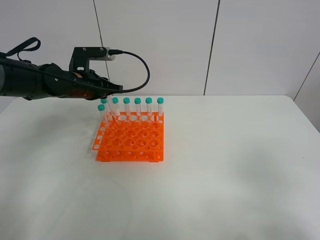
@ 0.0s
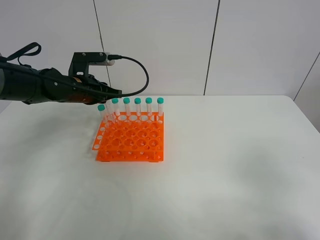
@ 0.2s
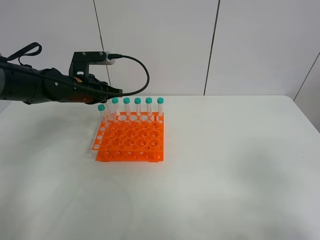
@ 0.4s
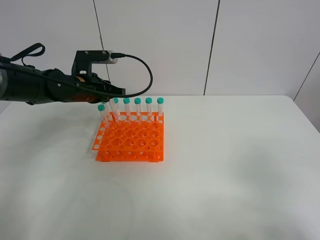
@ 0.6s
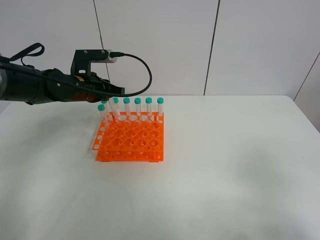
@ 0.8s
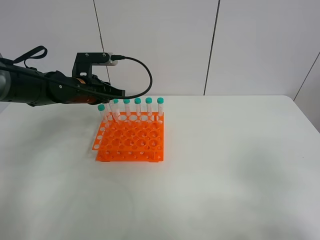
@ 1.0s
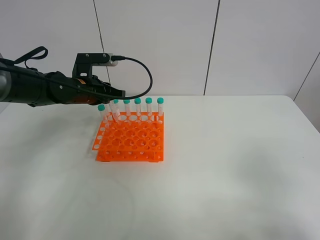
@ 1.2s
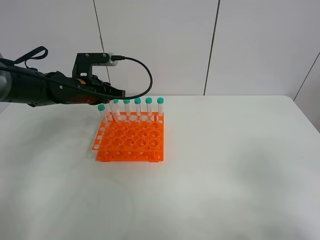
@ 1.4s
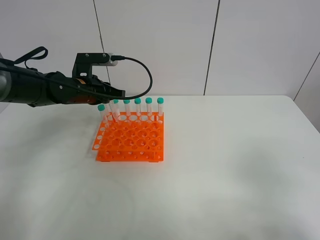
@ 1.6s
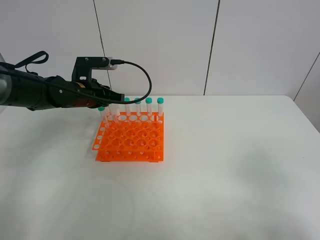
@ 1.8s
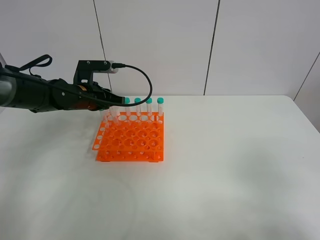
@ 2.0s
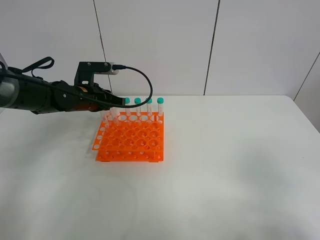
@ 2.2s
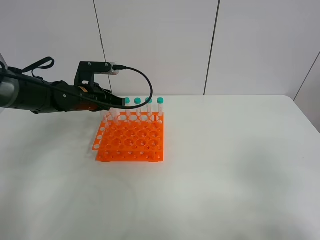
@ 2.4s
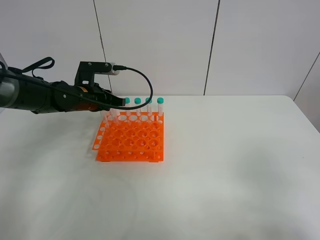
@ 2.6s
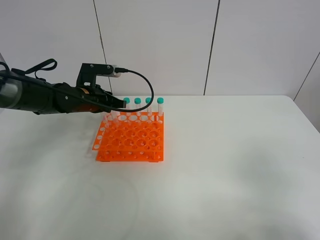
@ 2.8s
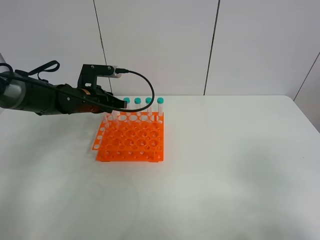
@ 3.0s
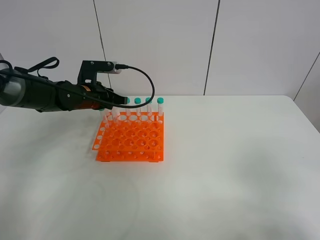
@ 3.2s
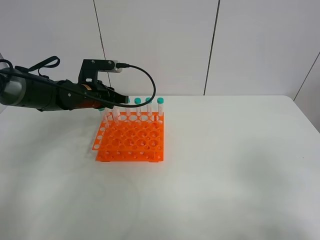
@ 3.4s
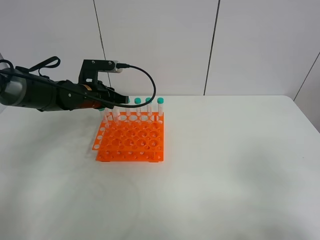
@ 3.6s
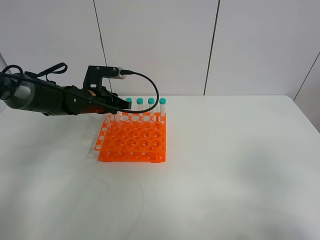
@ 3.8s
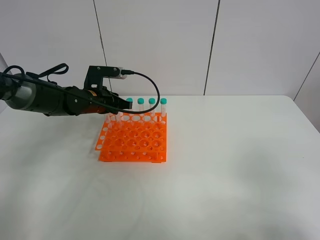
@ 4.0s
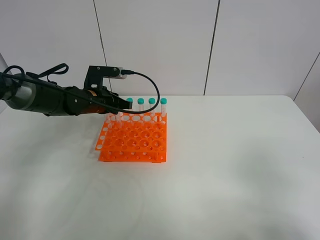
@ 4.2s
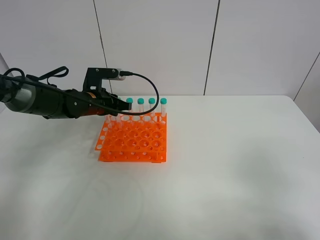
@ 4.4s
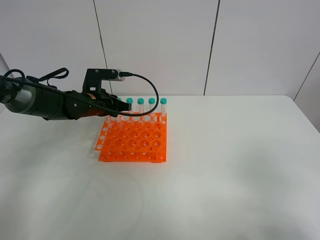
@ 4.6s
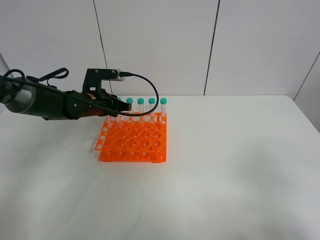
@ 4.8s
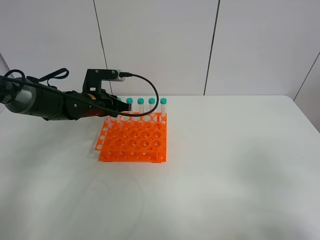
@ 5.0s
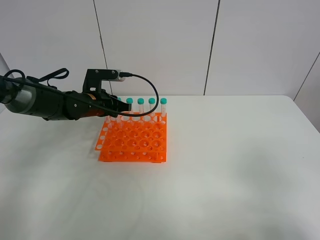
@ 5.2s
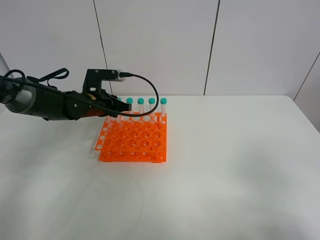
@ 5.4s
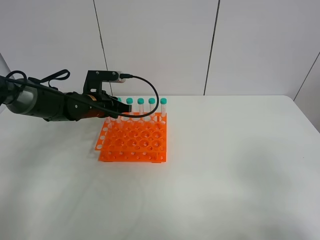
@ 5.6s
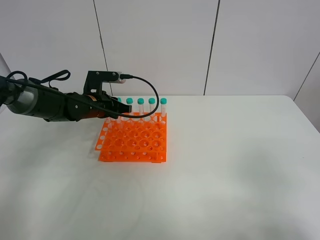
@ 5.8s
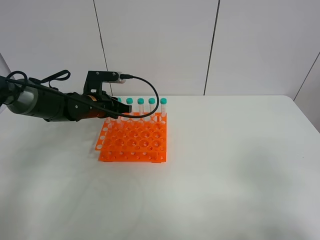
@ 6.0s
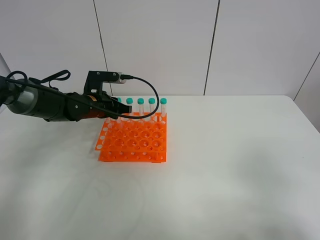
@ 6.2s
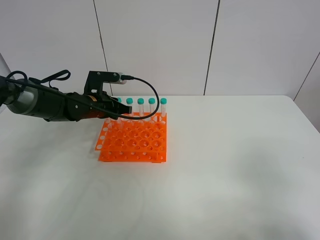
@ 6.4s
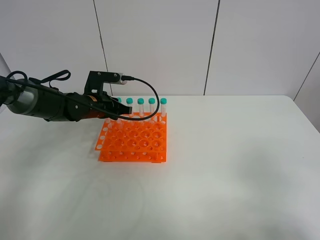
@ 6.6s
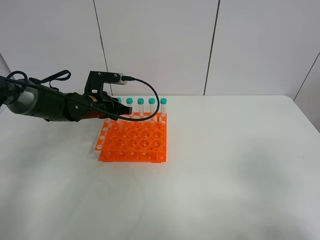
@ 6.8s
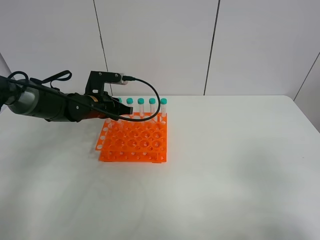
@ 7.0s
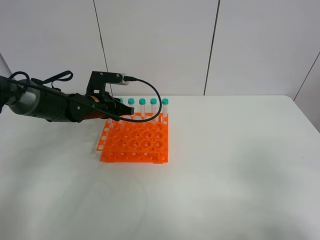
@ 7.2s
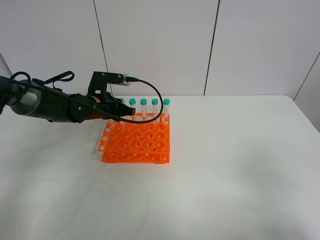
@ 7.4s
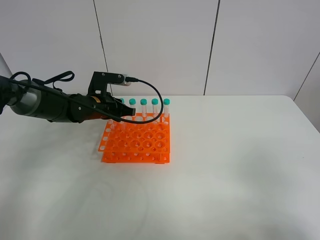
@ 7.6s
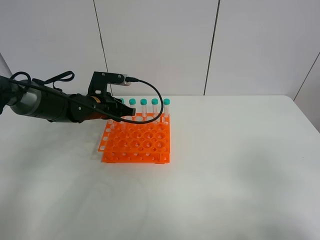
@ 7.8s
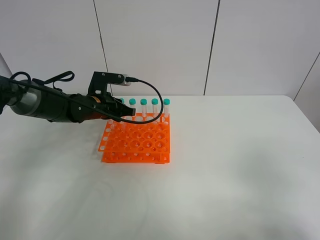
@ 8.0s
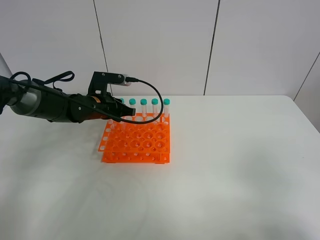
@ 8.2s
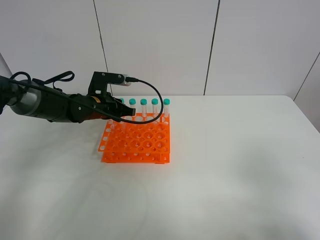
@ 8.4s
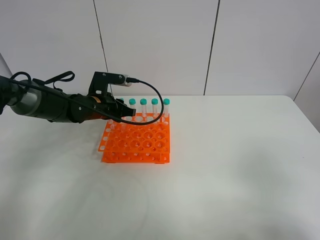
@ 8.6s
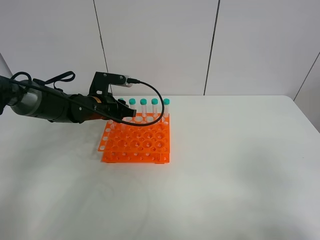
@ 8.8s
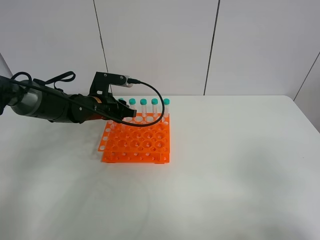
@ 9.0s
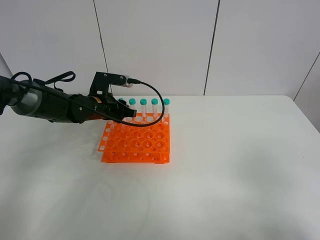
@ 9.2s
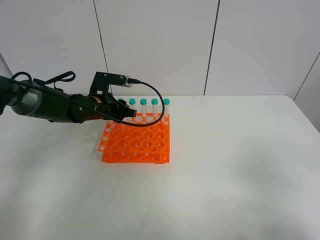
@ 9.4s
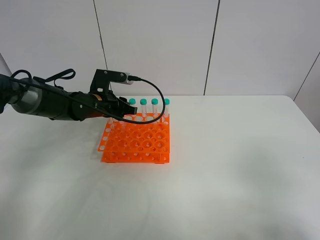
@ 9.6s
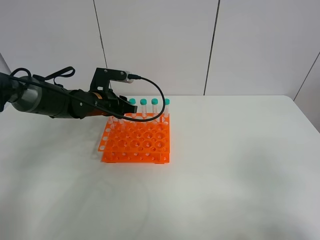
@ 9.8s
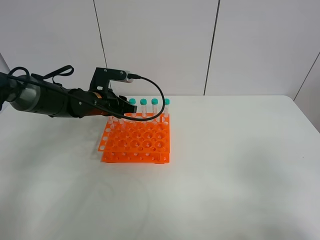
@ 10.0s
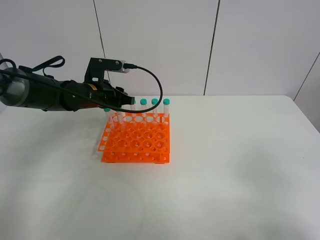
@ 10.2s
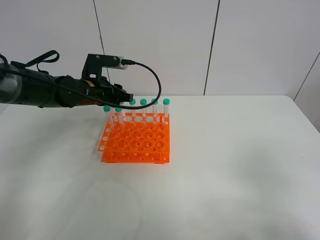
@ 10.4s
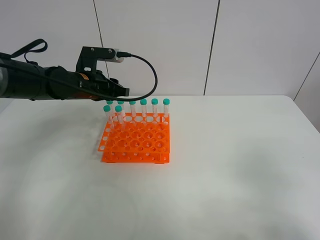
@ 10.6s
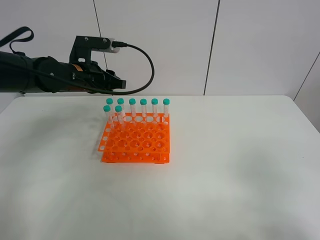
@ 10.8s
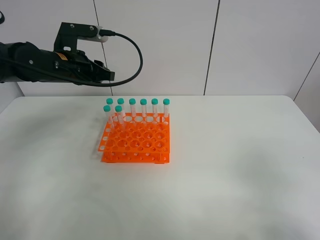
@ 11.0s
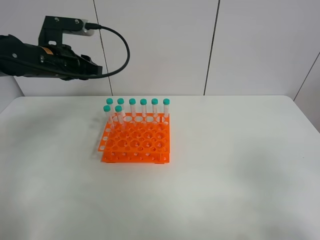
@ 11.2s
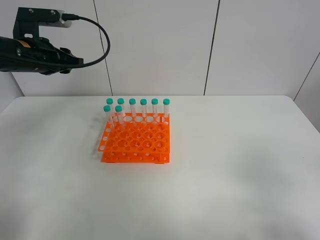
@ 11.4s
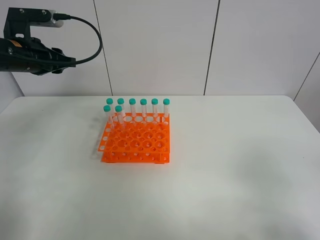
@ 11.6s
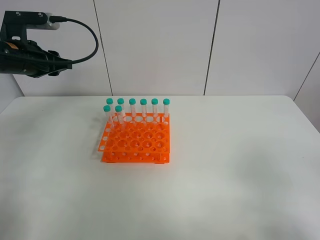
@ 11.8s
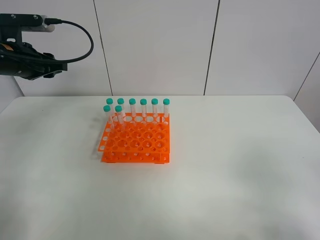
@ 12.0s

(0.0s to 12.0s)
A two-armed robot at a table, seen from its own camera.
Task of the whole recording: Put the test tube on the table back onto the test tube rack.
Step, 0.0s - 10.8s: Place the test tube on the test tube rack with the left gripper.
0.0s - 1.6s: Both grippers stay put.
1.6s - 4.4s: The grippers move only a little.
4.4s - 7.6s: Both grippers stay put.
7.6s - 9.0s: The left gripper opens.
9.0s - 10.4s: The grippers make only small movements.
10.4s - 12.0s: The left gripper travels to the left and upward by roughly 15 cm.

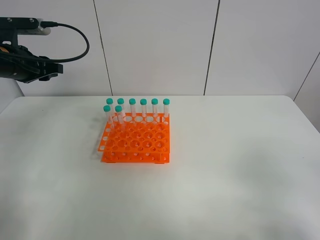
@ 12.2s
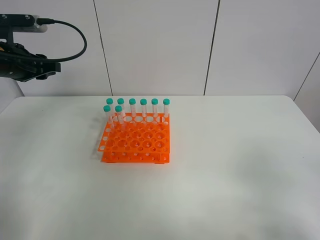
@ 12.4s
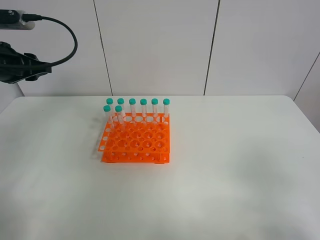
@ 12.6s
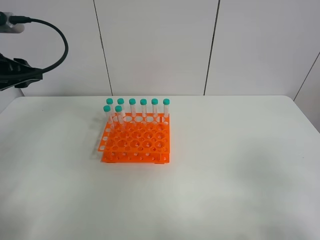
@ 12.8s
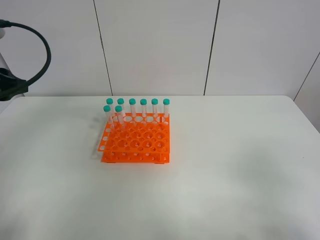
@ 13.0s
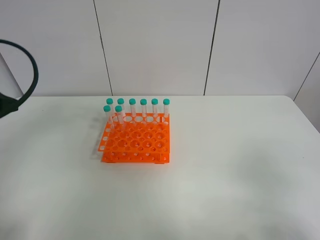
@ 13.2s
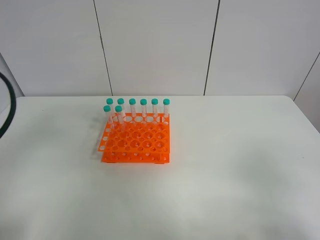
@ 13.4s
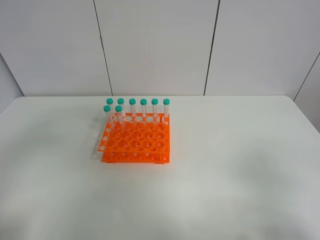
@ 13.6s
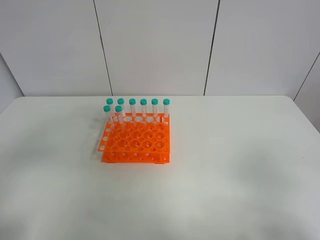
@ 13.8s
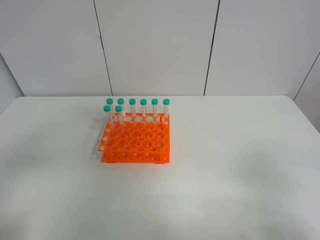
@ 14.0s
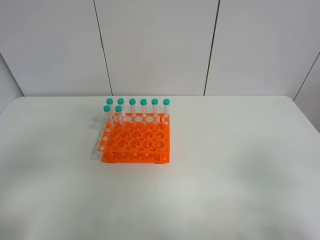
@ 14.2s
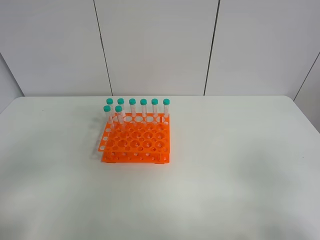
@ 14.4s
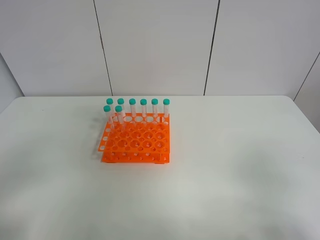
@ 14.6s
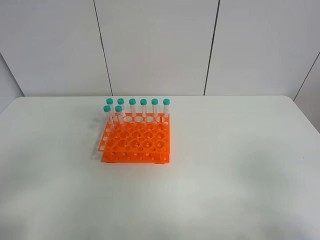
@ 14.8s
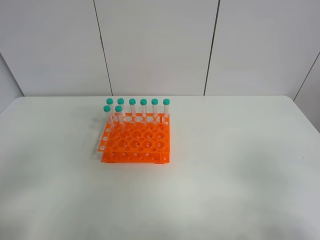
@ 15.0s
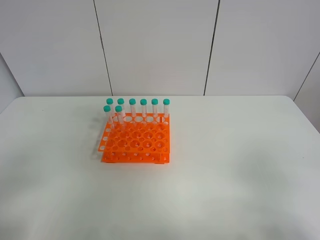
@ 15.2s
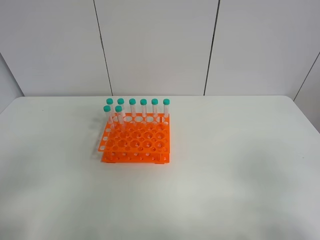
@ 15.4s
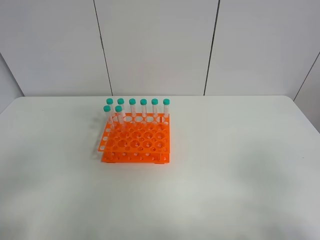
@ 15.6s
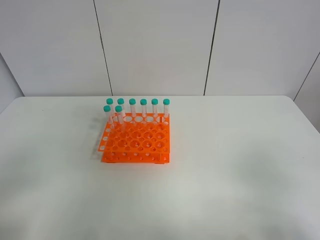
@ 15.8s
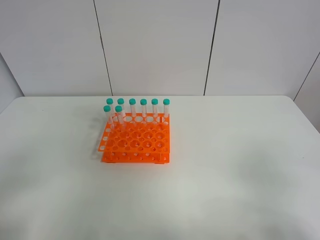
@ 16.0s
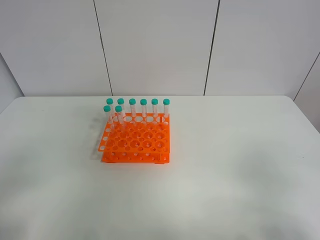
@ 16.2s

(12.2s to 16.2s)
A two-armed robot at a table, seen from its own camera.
Task of the whole recording: Put the test tube on the table back onto the test tube rack.
12.2s - 13.6s: The left gripper moves backward, roughly 25 cm.
14.8s - 16.2s: Neither gripper changes place.

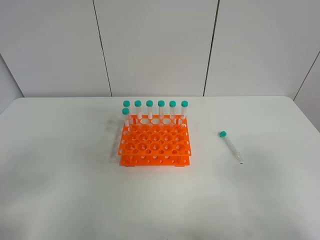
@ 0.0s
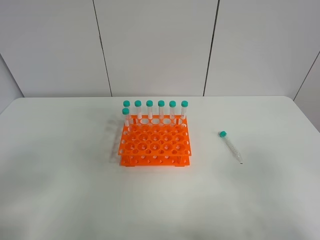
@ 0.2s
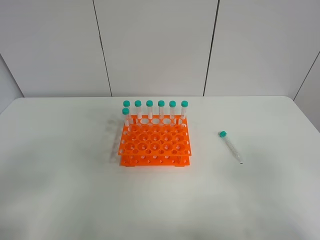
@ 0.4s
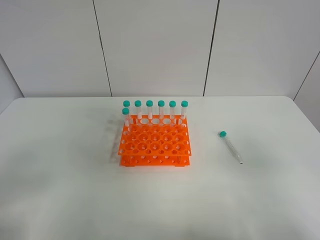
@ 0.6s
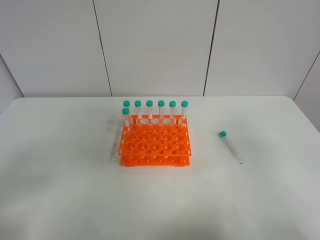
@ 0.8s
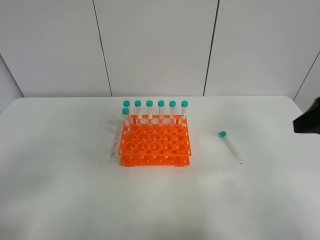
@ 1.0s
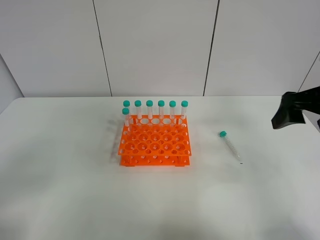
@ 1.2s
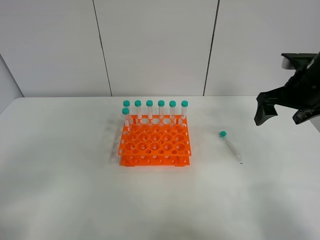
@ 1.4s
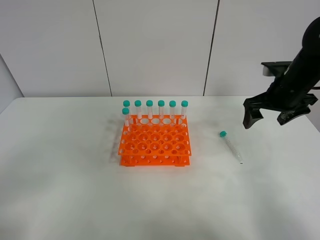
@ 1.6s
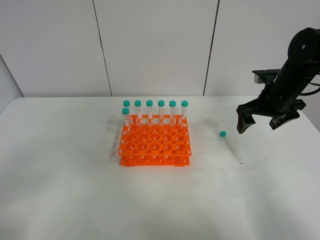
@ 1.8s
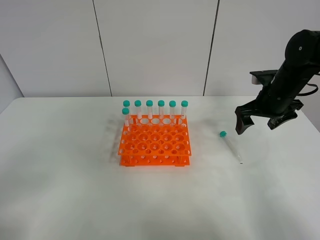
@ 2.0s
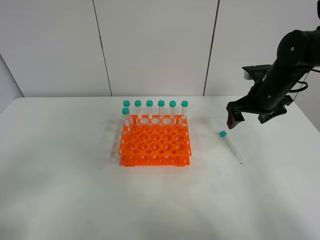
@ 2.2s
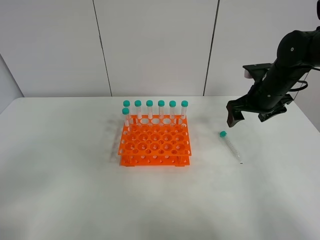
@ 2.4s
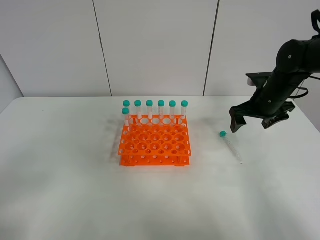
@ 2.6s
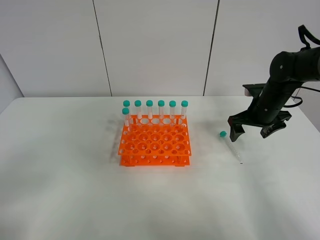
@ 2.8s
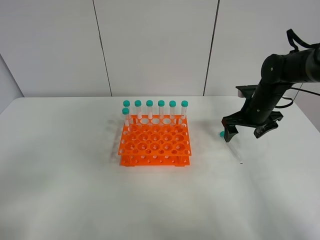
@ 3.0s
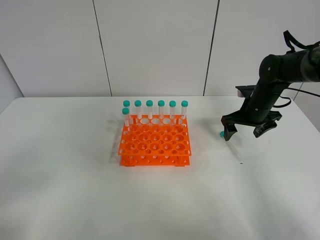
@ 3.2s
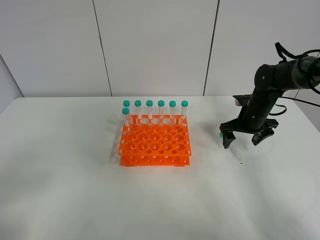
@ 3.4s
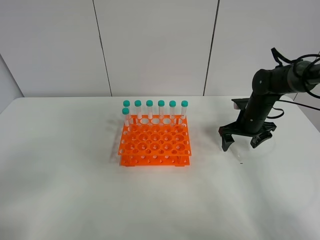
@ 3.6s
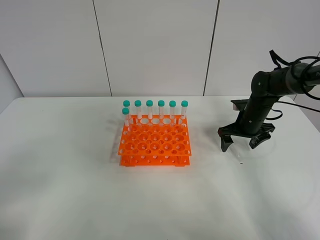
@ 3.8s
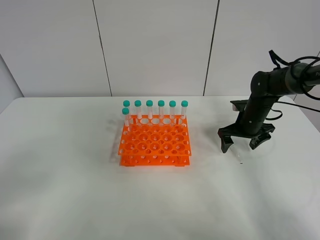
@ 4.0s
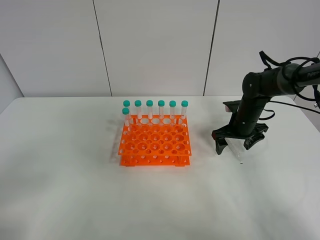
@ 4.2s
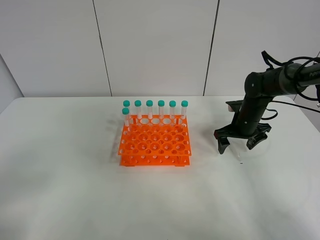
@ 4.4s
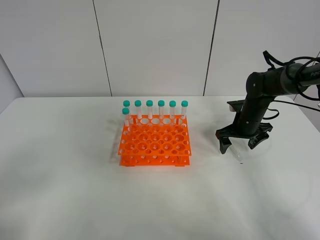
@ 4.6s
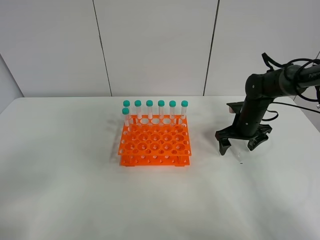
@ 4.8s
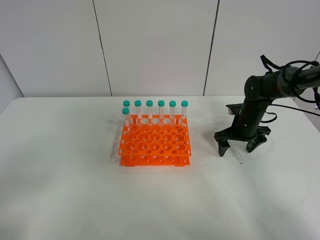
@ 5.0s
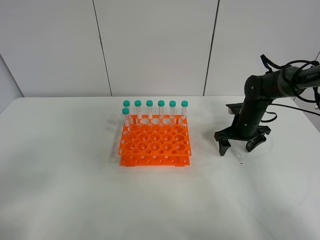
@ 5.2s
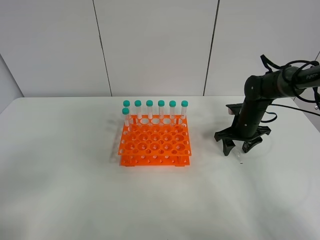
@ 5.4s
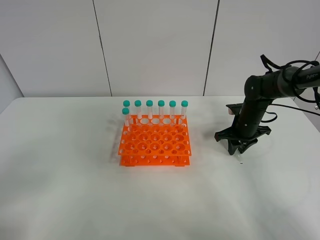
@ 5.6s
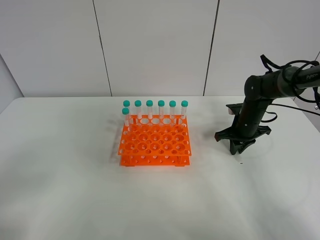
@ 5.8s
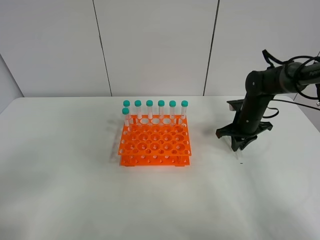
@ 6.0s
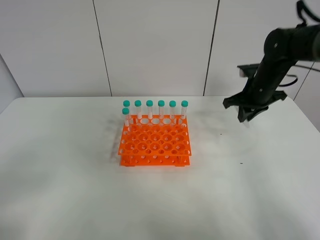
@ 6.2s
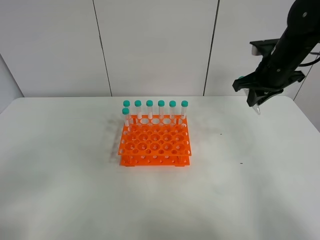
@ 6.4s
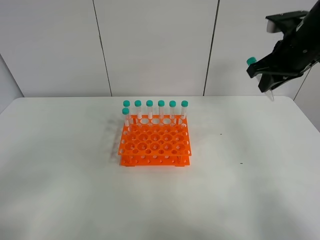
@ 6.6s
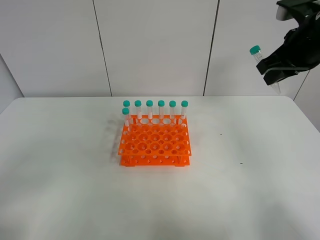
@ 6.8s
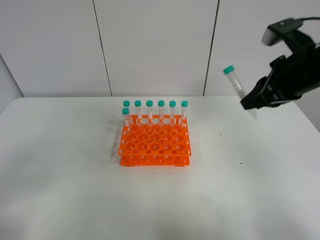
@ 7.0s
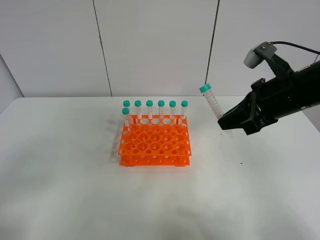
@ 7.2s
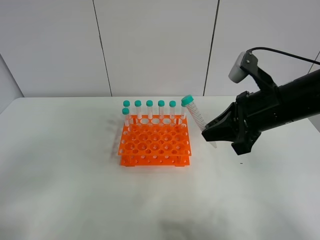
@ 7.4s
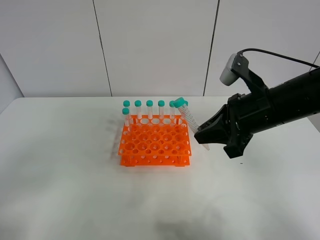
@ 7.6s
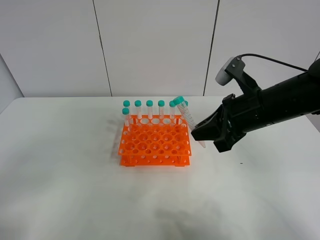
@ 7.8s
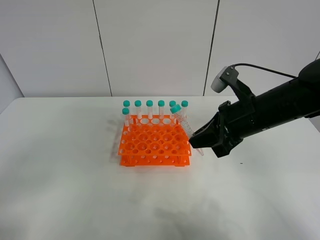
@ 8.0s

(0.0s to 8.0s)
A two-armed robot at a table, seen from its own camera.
Task of the whole recording: Put the test tube on the table back onto the test tube rack.
Step, 0.0s - 6.2s: Pick up the test tube with the right gripper.
0.0s - 1.6s: The right gripper heads forward, covering some 35 cm.
1.6s - 3.2s: The right gripper is displaced downward by approximately 10 cm.
3.2s - 4.8s: The grippers stay close to where they were, moving slightly.
4.8s - 6.4s: The right gripper shifts about 20 cm upward, and closes up.
6.4s - 8.0s: The right gripper travels backward and to the left by roughly 15 cm.
